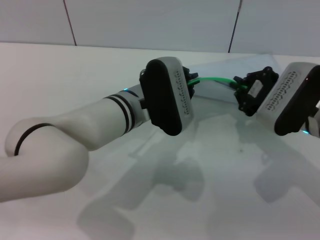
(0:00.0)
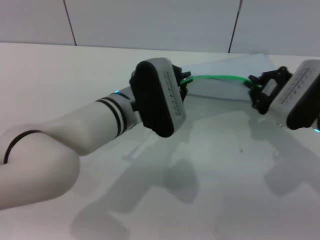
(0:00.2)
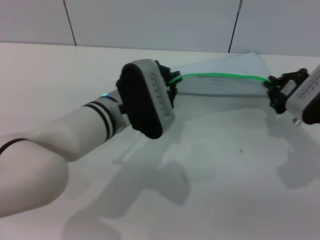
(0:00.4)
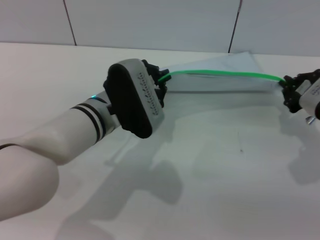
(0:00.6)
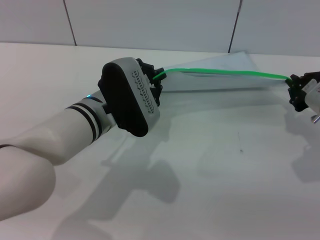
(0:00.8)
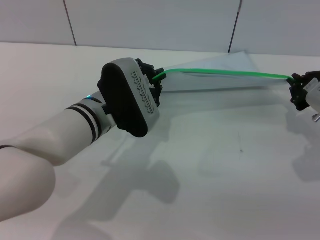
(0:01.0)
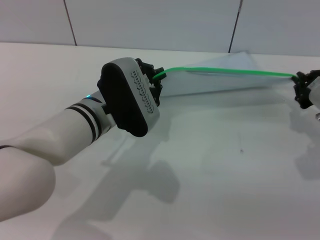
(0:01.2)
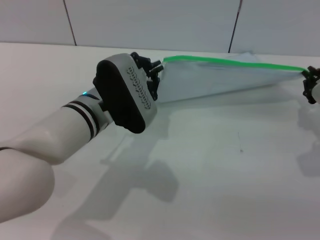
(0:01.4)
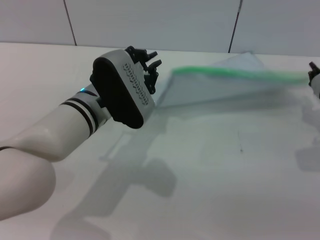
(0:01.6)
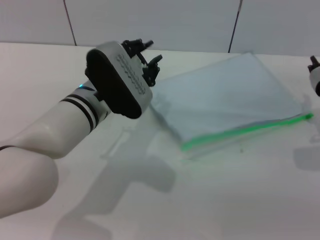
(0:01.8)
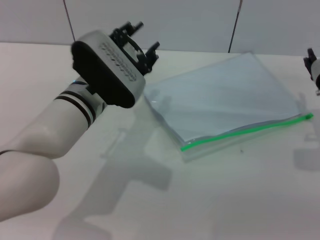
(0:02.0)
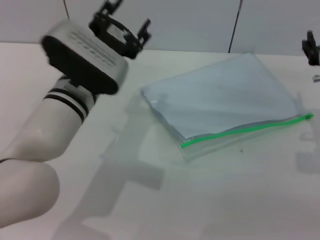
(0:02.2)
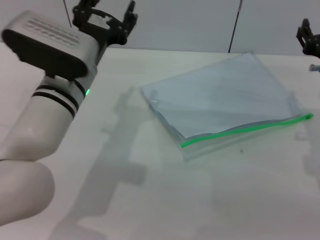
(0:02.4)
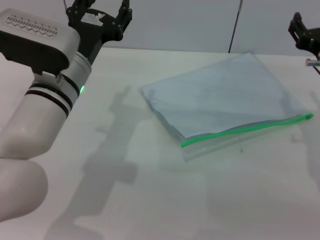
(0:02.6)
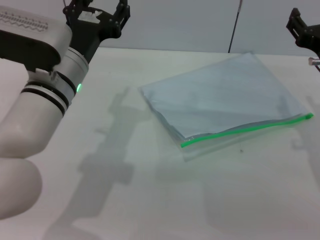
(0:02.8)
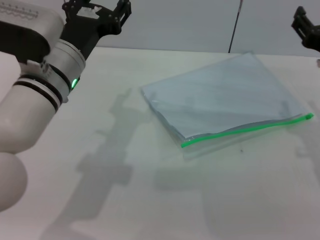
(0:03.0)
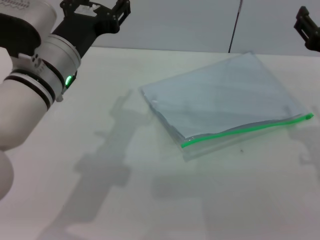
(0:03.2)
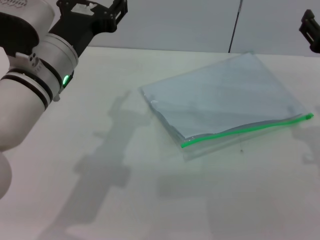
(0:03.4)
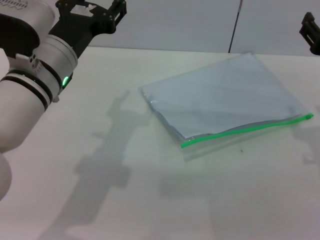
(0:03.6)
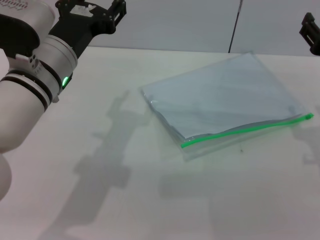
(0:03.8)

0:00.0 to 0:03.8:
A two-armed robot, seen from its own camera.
Step, 0:01.4 to 0:01.8: Place the transparent plastic bag.
0:00.0 to 0:01.2: The right gripper is displaced to the right by roughly 10 cm.
0:01.2 to 0:02.6: The right gripper heads to the left, covering roughly 5 cm, and opens up; the left gripper opens up.
0:02.6 to 0:03.8: The grippers move only a little.
